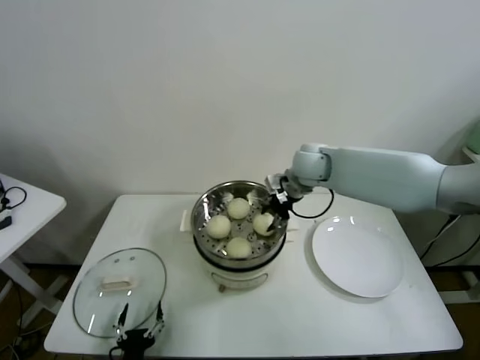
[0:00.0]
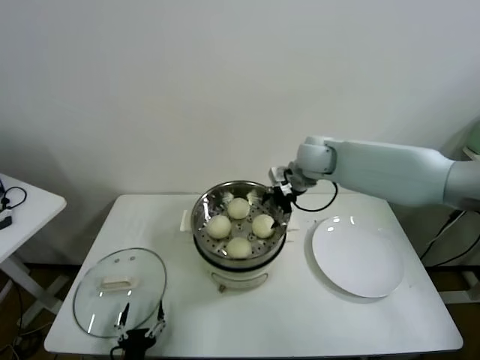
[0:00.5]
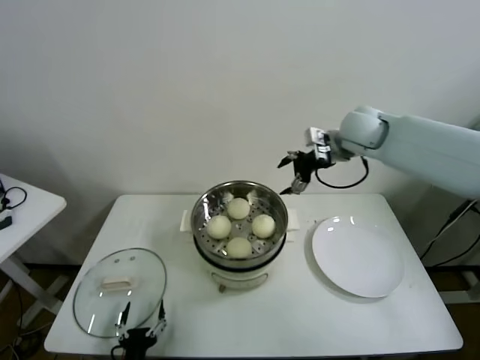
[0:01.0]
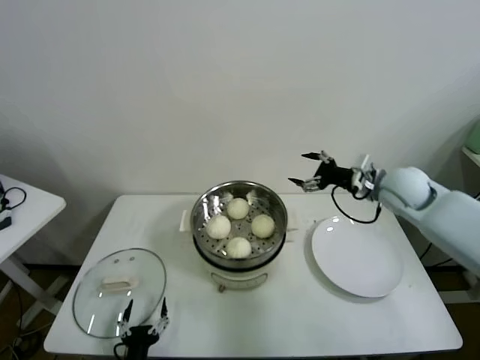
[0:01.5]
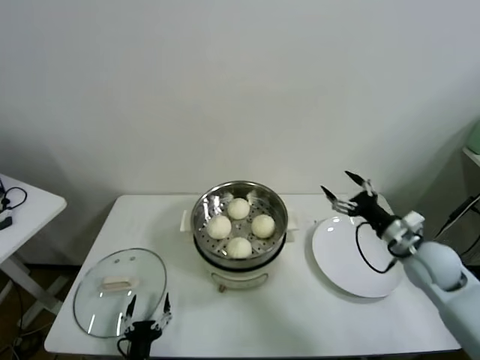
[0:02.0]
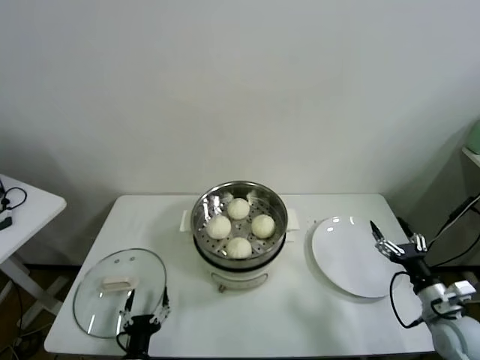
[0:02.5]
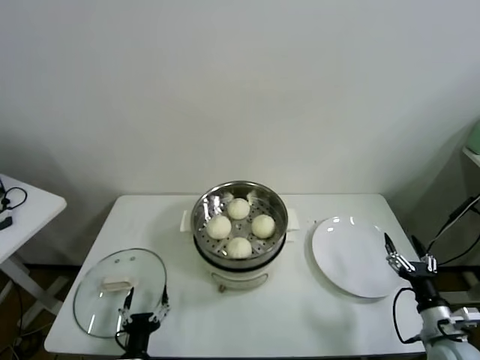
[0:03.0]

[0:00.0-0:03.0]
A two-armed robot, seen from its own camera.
Task of the whole recording: take steamed baozi put them in steamer.
0:00.0 to 0:01.5: The right gripper travels to the right by approximately 15 cm, and opens its fingers.
0:01.5 to 0:03.0: The right gripper goes roughly 35 cm backward and downward.
